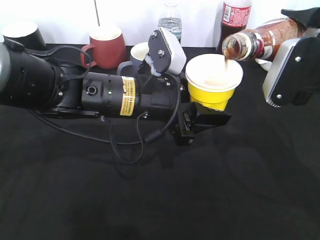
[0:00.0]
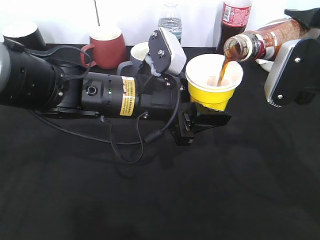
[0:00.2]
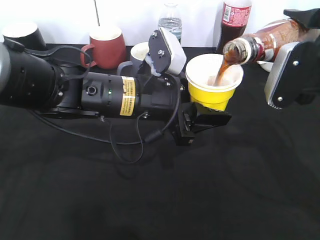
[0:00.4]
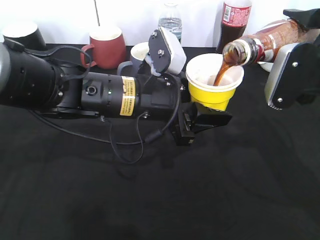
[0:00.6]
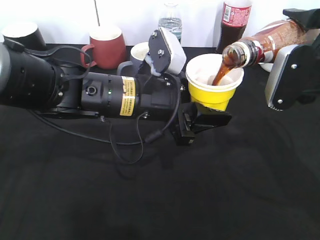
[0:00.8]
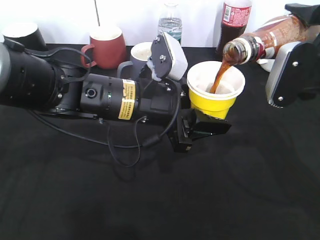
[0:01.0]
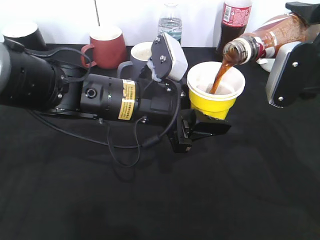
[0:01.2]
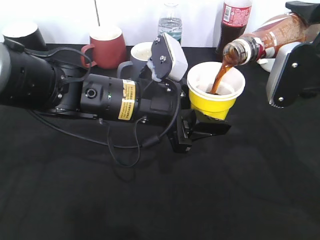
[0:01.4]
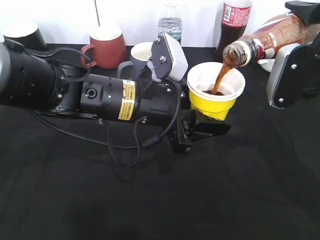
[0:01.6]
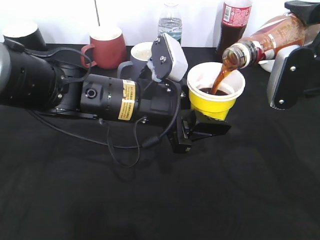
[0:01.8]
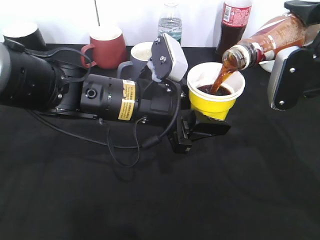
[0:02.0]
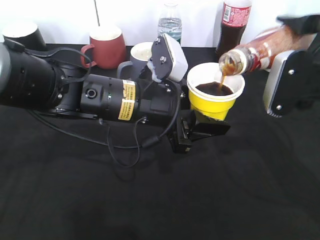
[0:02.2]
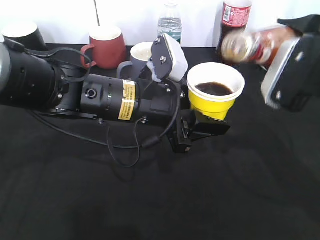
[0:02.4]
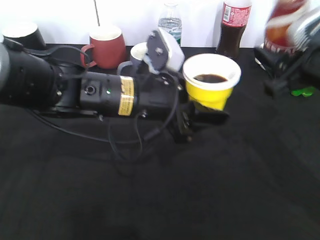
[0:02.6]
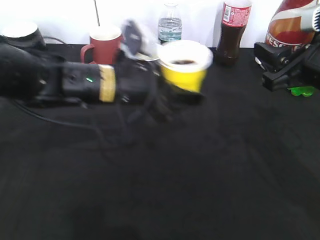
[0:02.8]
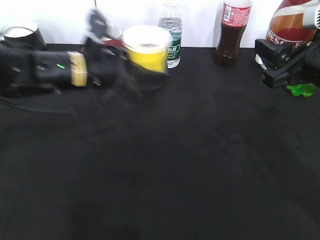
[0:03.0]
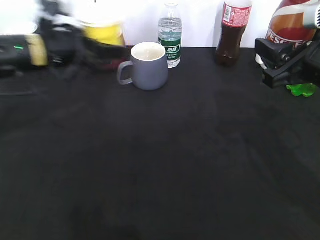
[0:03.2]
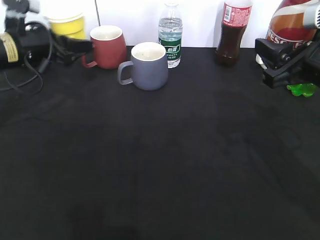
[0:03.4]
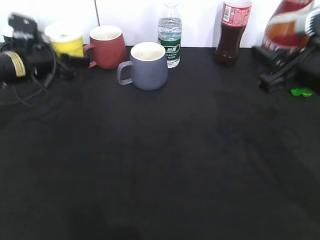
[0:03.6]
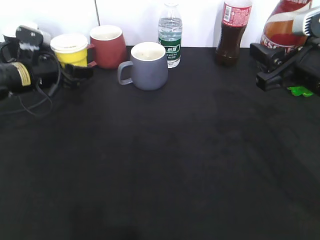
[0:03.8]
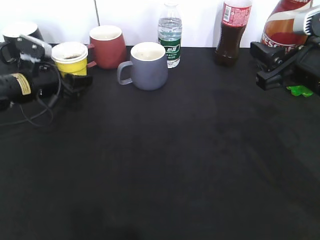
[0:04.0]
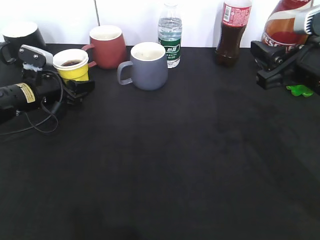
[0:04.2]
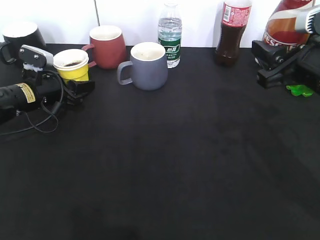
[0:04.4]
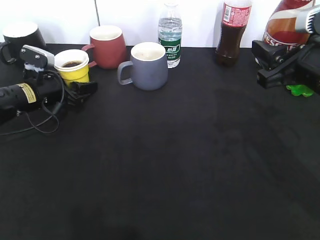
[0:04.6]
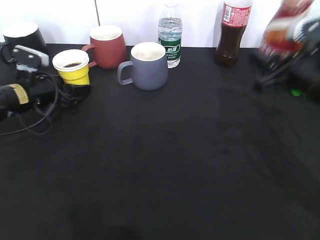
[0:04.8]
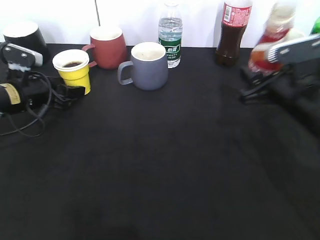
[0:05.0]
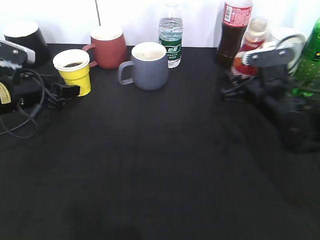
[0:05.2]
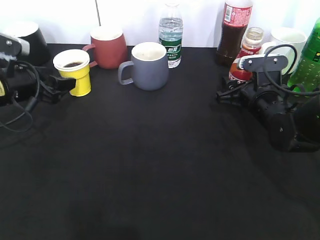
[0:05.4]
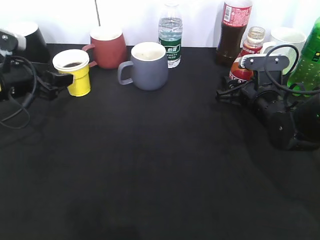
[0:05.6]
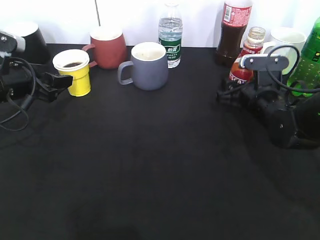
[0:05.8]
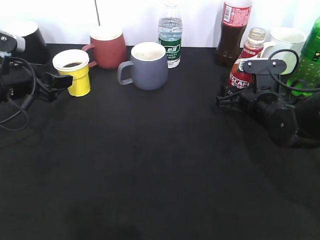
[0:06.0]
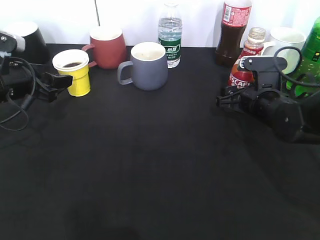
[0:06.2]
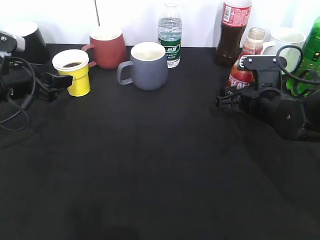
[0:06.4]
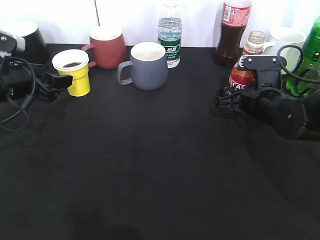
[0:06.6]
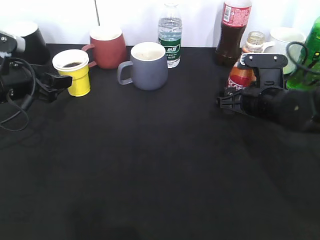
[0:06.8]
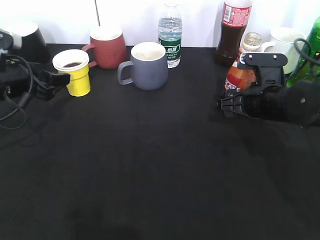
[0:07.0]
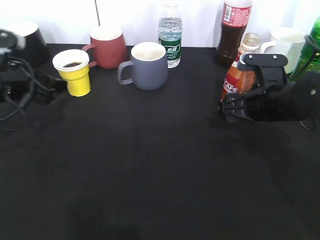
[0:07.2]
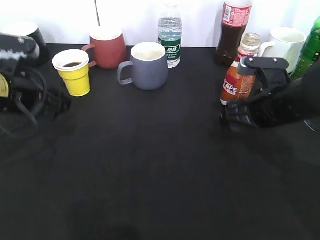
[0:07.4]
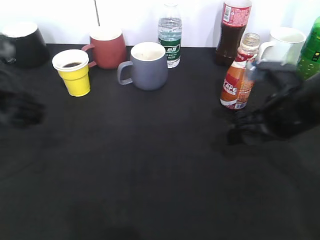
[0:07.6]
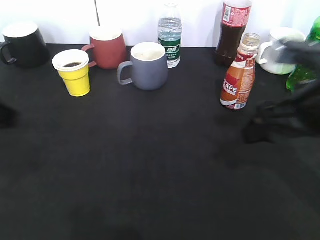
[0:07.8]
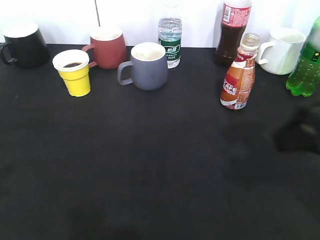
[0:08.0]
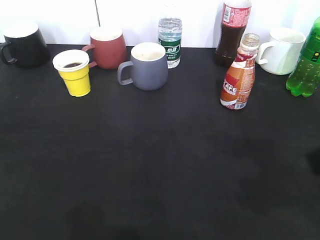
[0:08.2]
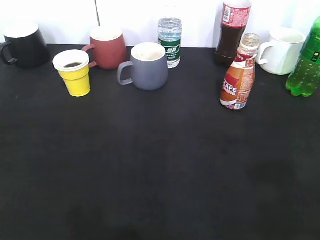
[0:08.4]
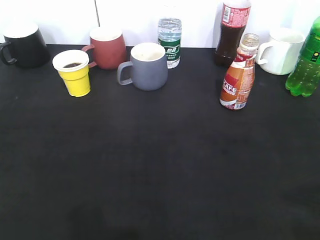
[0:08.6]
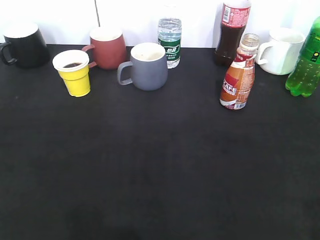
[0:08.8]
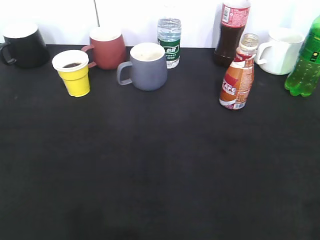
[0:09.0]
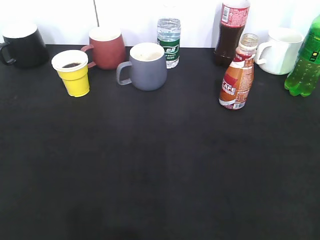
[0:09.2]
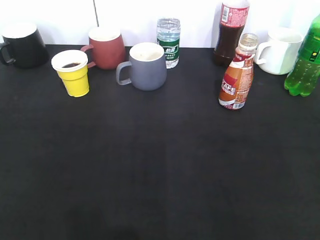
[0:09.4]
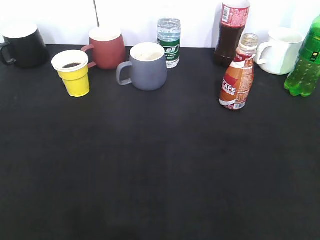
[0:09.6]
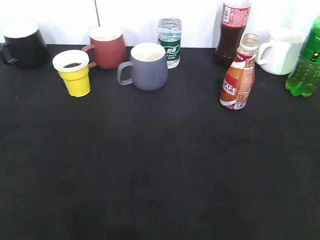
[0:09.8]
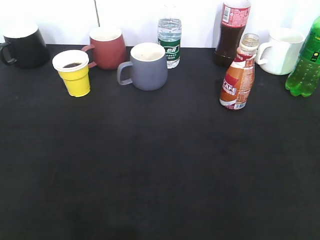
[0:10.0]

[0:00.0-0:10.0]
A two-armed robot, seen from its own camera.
Step, 0:00.0 to 0:02.4: Pour the coffee from bottle to cup with right gripper.
Step, 0:02.6 to 0:05.0: Place the yellow paper cup on the table with left gripper.
Step, 0:05.2 to 0:07.4: Place the coffee bottle on the table with right gripper.
0:00.0 to 0:01.4: The grippers stay close to where they were, moving slightly.
0:01.4 to 0:02.8: The left gripper shifts by approximately 5 cm.
0:02.8 to 0:04.2: The left gripper heads to the left, downward and forward, covering roughly 20 cm.
0:04.2 to 0:05.8: The left gripper is displaced upward and backward by about 10 cm; the right gripper goes approximately 15 cm downward and forward.
0:05.8 to 0:07.2: The right gripper changes place by about 5 cm, and opens its fingers.
0:07.2 to 0:08.6: The right gripper shifts about 30 cm backward and upward; the left gripper shifts roughly 30 cm backward.
